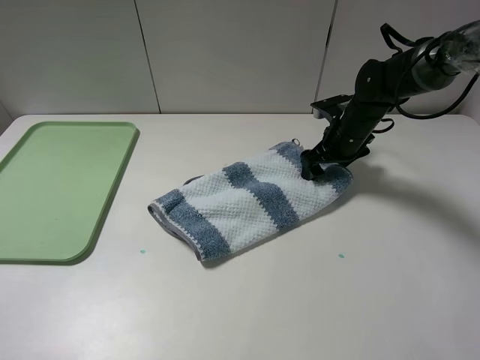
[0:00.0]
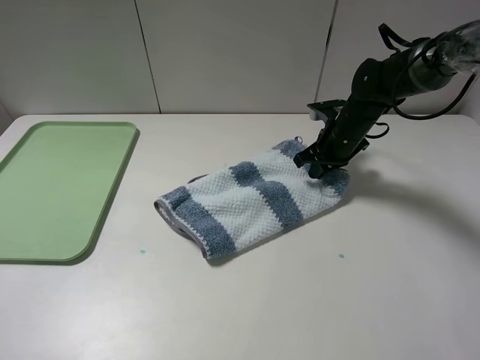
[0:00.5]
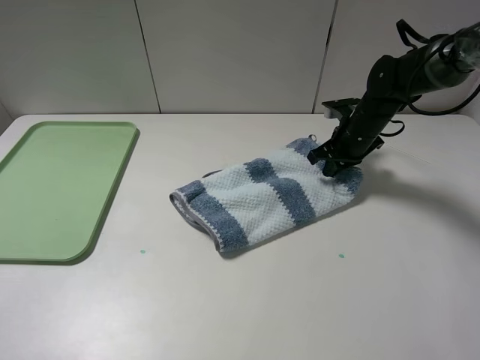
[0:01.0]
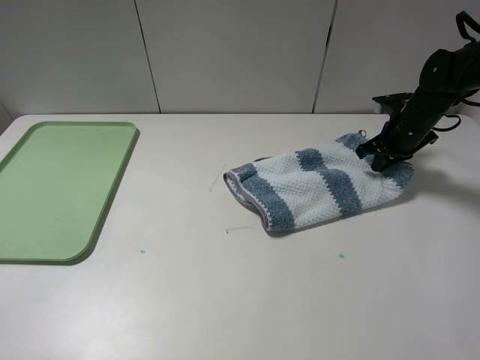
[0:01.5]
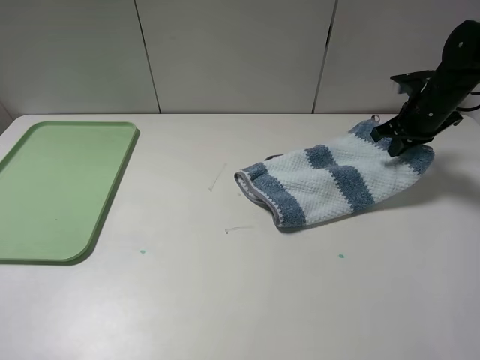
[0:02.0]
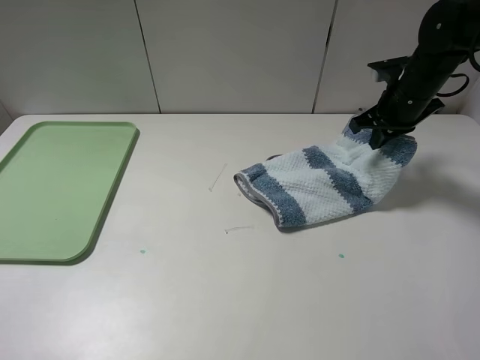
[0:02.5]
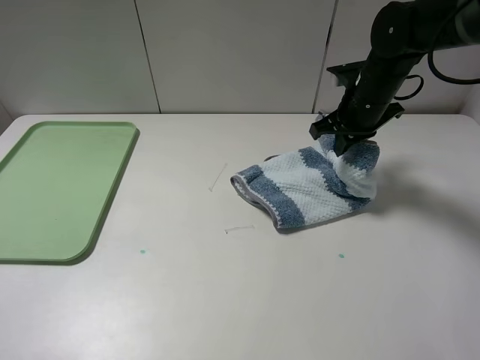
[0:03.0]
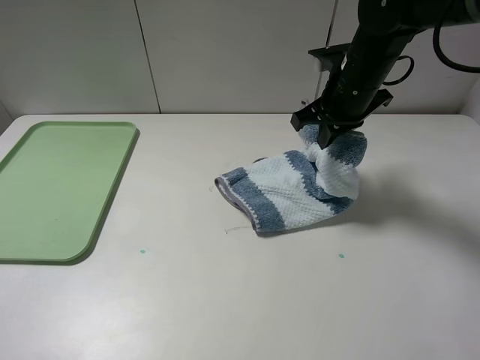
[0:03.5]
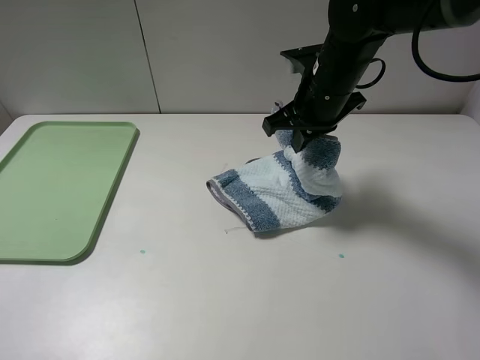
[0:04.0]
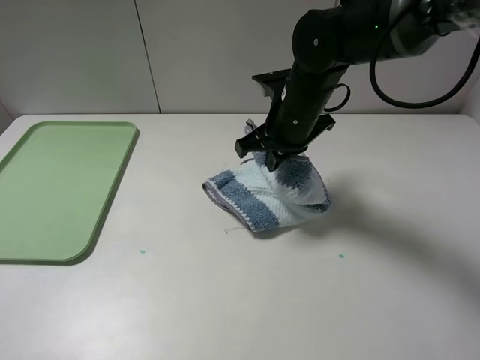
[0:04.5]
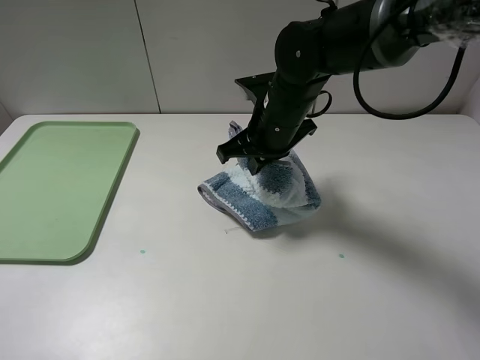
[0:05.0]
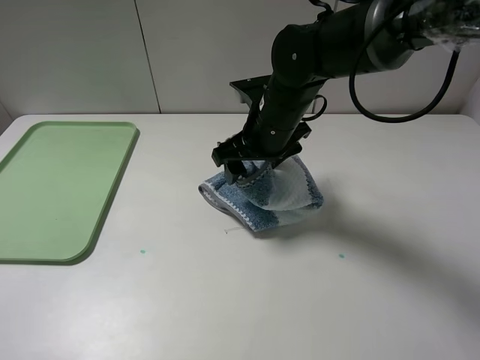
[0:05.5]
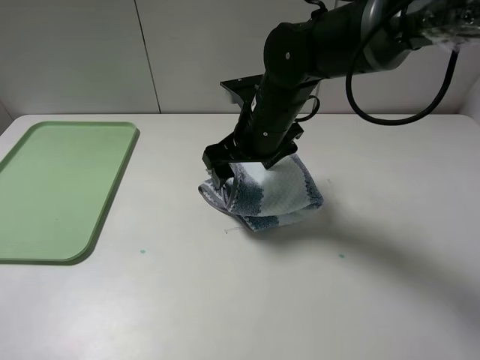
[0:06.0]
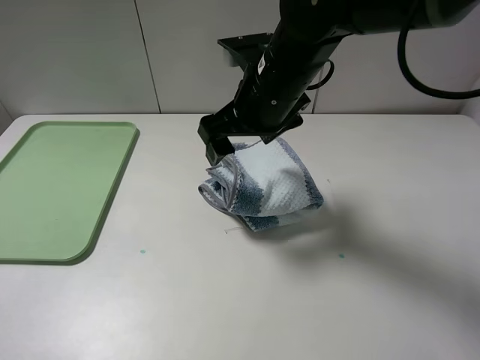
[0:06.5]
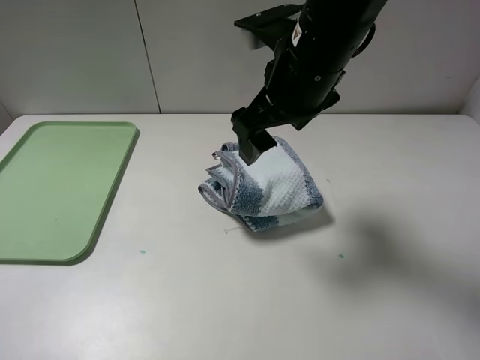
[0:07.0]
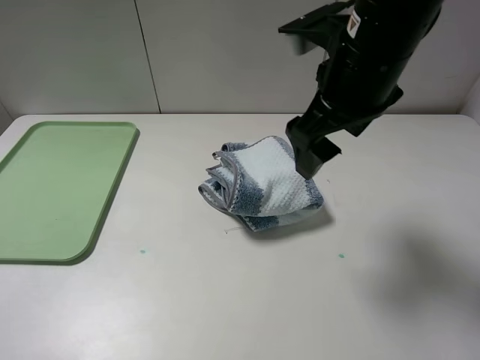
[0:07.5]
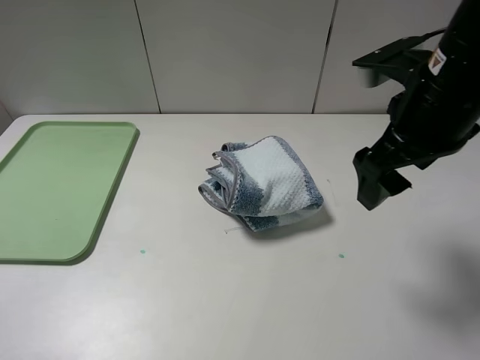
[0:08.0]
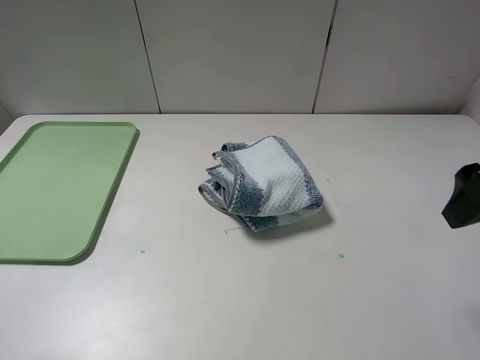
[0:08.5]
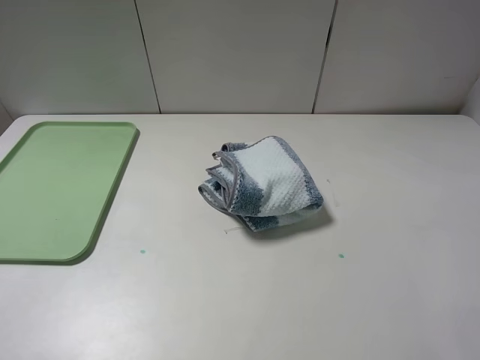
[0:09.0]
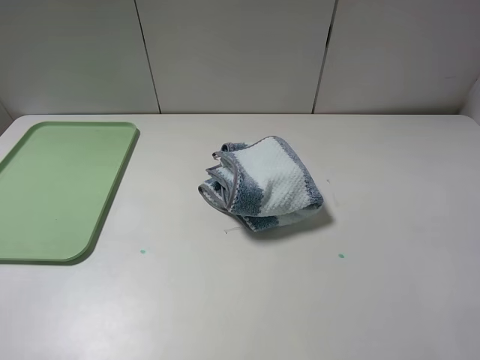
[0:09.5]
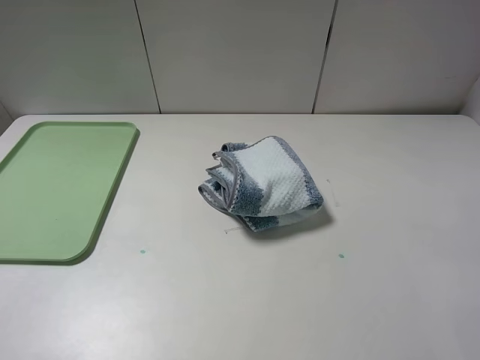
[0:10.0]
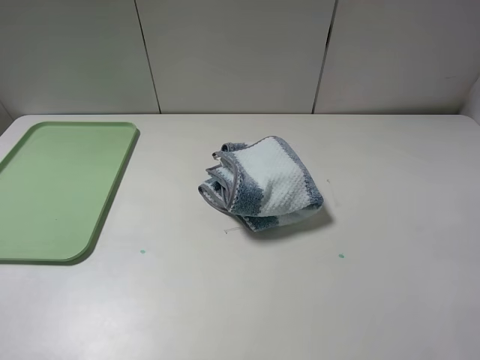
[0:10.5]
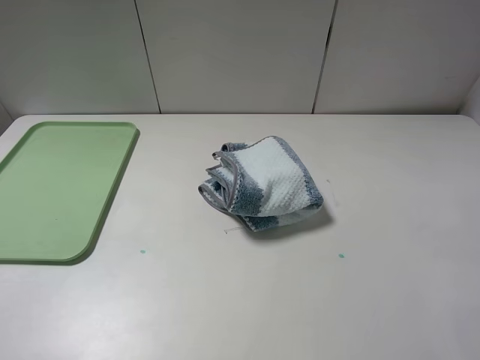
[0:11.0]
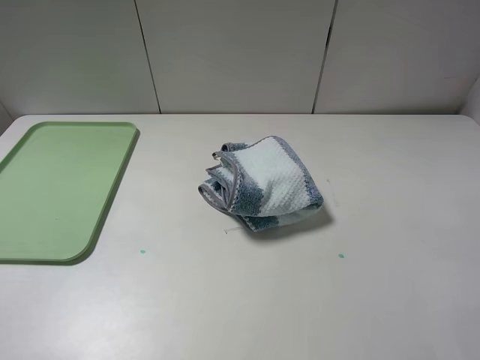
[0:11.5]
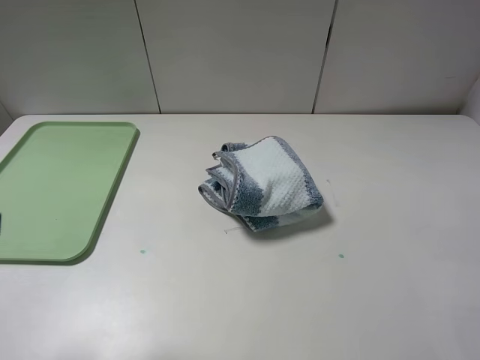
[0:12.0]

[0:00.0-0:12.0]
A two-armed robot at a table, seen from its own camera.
Step, 0:01.0 to 0:06.5: Fold the blue white towel from right to left with right gripper.
0:00.0 to 0:02.0: The right gripper is displaced to the right and upward by approximately 15 cm, and closes up.
0:02.0 to 0:04.0: The right gripper goes about 20 cm to the left.
0:04.0 to 0:06.0: The right gripper is displaced to the left by approximately 5 cm, and opens its fingers.
0:06.0 to 0:08.0: The right gripper is displaced to the right, upward and backward by roughly 20 cm.
0:08.0 to 0:10.0: The right gripper shifts about 25 cm backward and to the right.

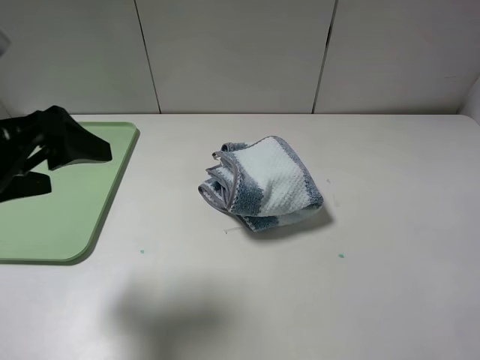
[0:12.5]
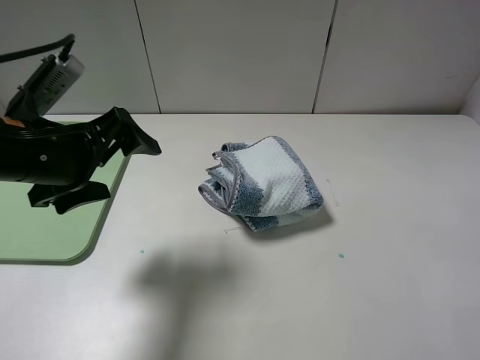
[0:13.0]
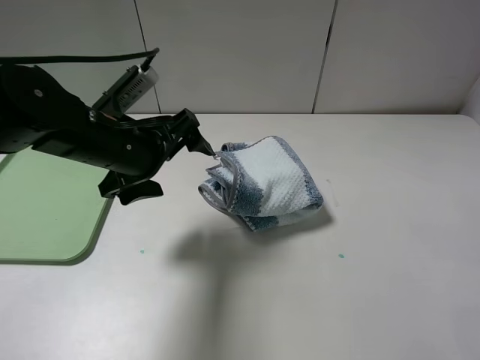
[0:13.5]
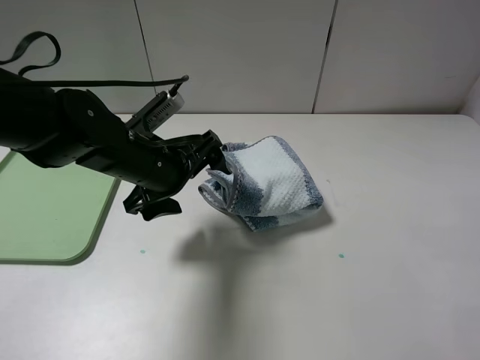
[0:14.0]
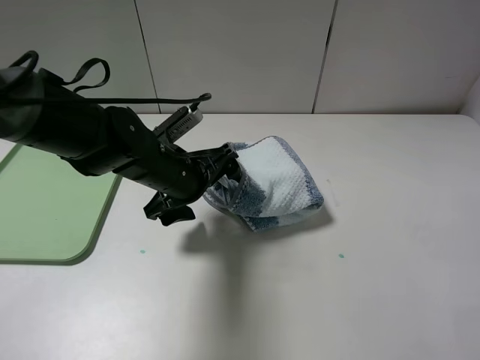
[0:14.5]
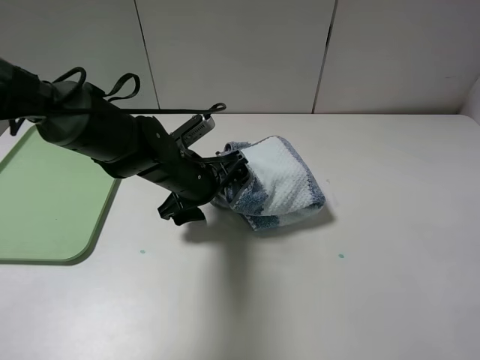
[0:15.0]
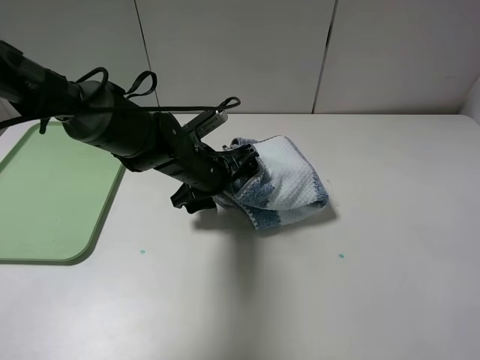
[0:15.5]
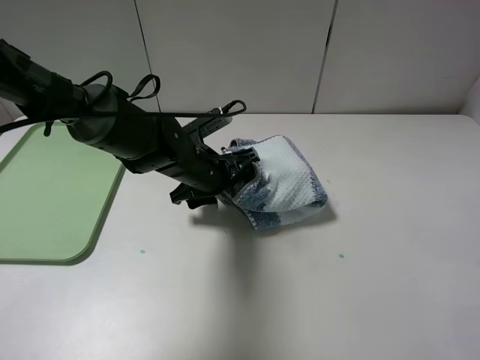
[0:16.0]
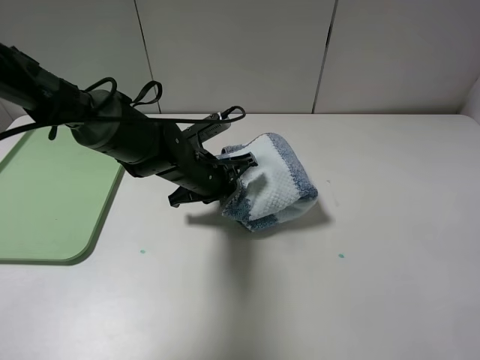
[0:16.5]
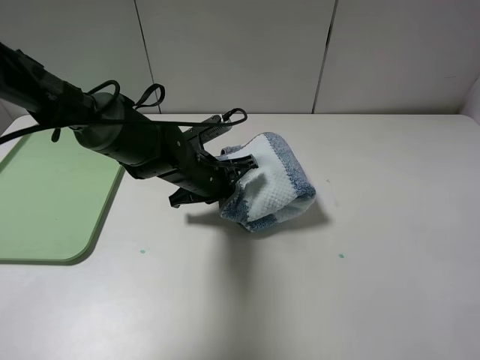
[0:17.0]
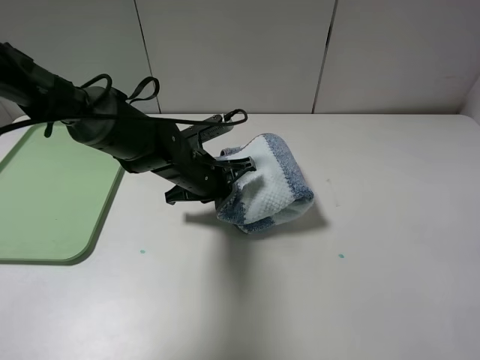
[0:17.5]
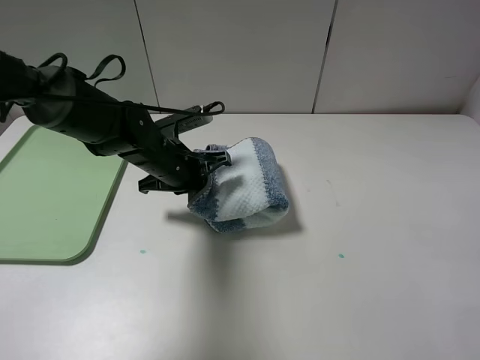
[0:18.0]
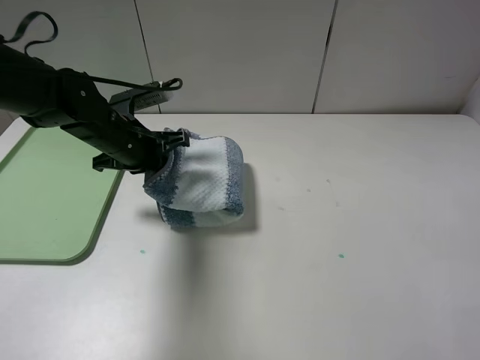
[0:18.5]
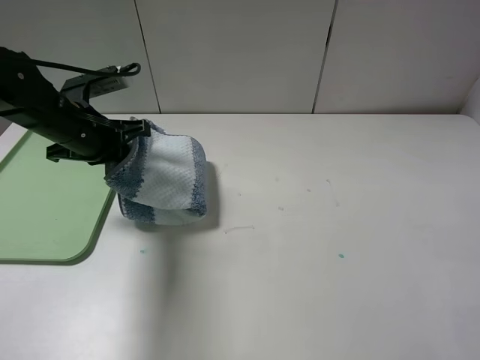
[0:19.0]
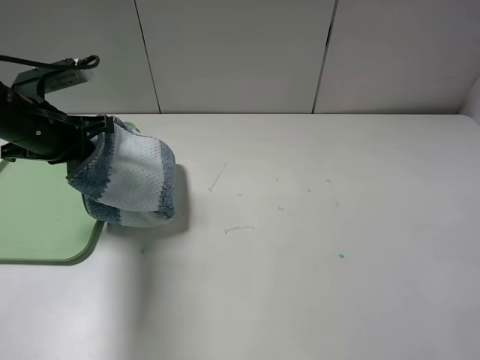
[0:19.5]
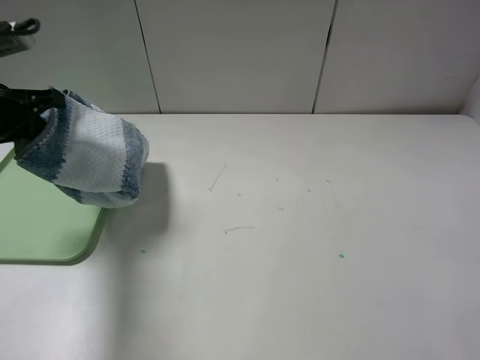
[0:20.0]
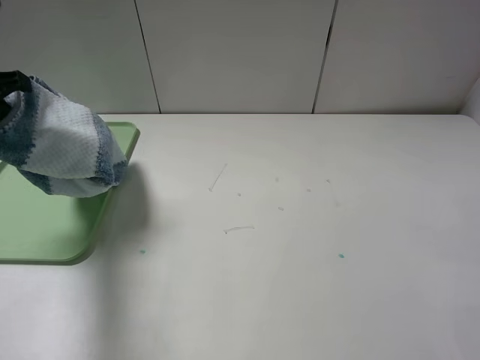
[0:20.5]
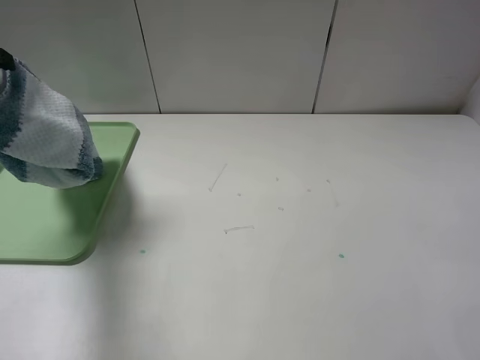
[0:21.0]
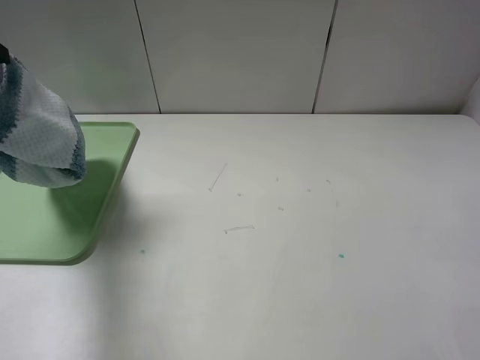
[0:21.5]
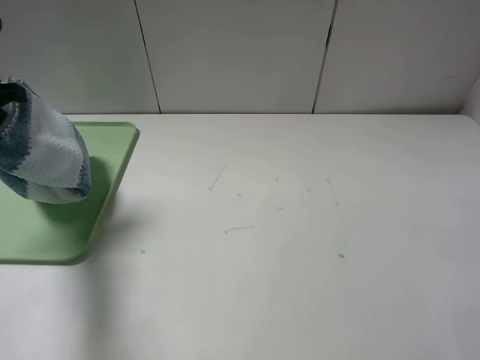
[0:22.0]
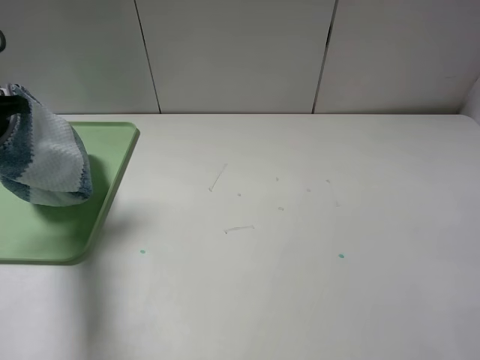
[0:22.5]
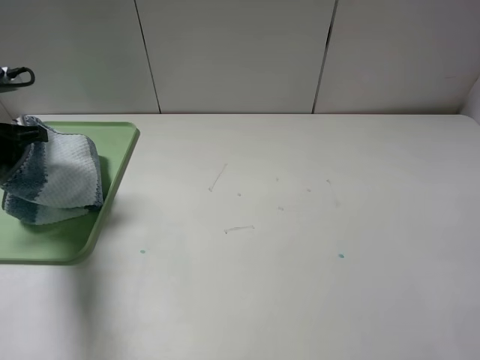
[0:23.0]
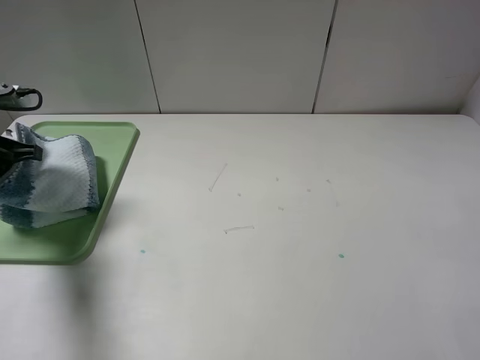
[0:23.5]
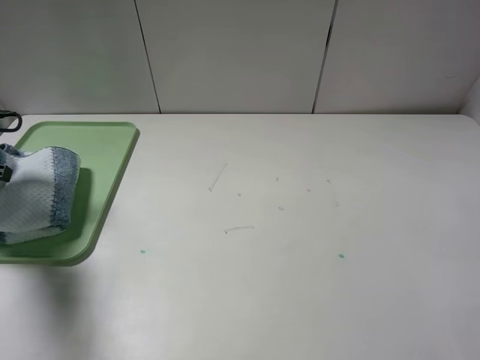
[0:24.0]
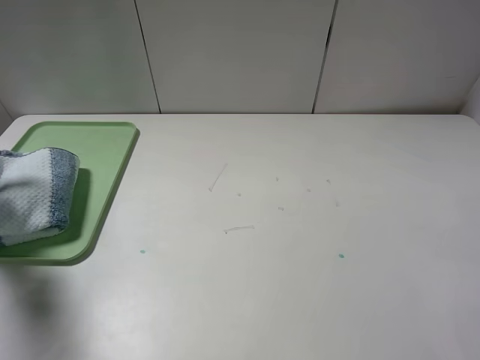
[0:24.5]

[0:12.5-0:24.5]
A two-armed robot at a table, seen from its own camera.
Step, 0:12.5 to 0:17.0: Grasp the blue white towel with the left gripper.
0:12.5 to 0:14.5: The left gripper goes some 25 cm to the right, downward and forward.
0:14.5 to 0:16.5: The left gripper moves some 5 cm, and closes up.
0:16.5 to 0:18.5: The left gripper moves to the left and upward, approximately 15 cm.
0:18.5 to 0:20.5: The left gripper travels to the left and upward by roughly 20 cm.
0:20.5 to 0:22.5: The grippers stay close to where they were, moving slightly.
0:22.5 to 0:24.5: The left gripper goes some 10 cm to the left and downward, and opens its fingers.

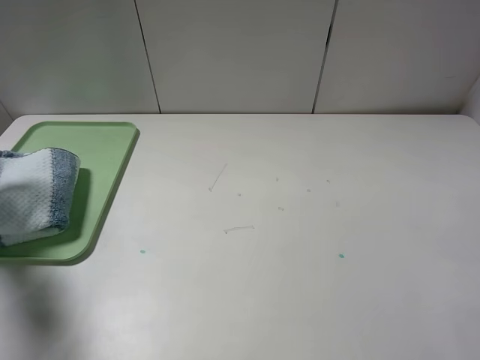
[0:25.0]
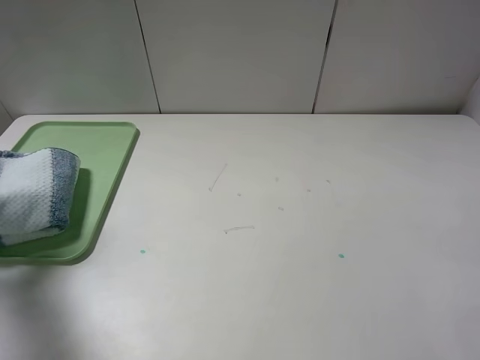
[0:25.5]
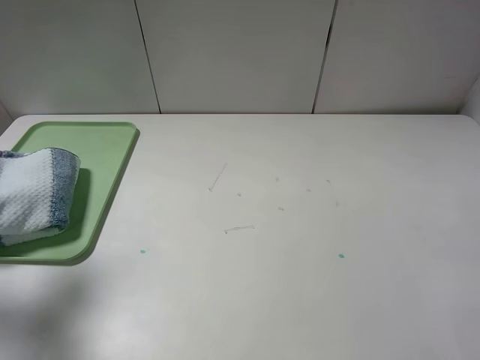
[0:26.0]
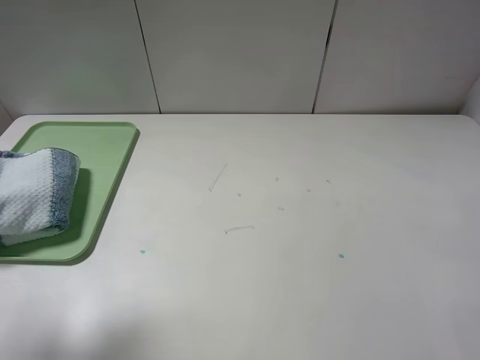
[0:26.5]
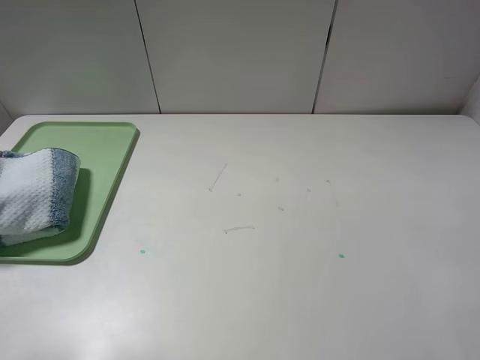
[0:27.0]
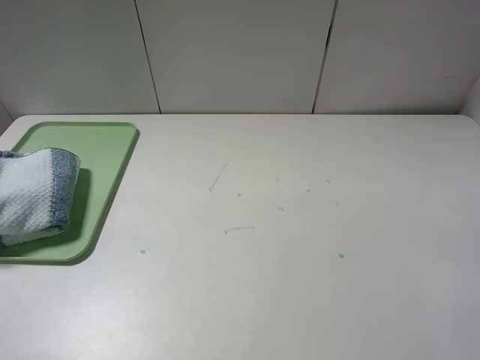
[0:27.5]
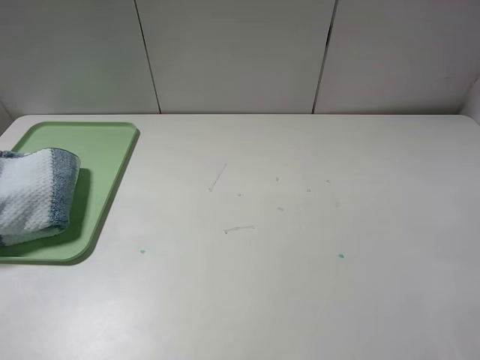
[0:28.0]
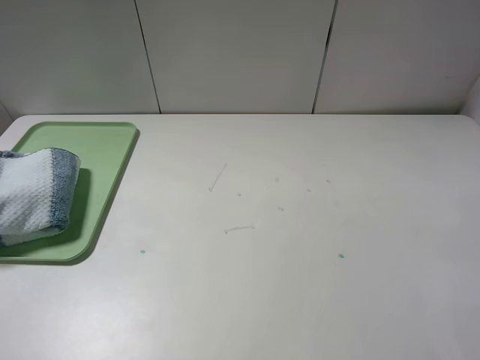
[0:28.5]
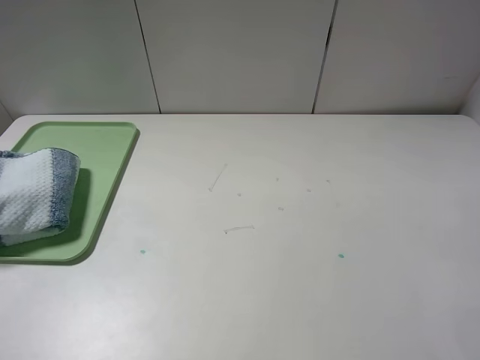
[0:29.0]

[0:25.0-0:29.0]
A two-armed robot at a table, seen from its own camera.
0:25.0 to 0:27.0: The left gripper goes approximately 25 cm backward, to the right and upward.
